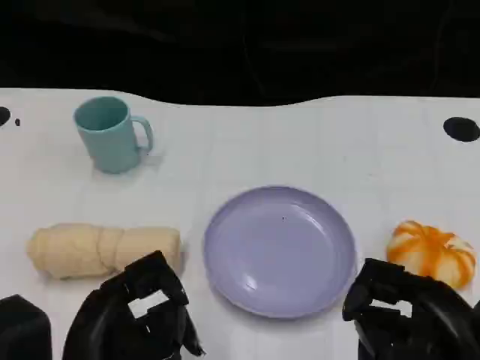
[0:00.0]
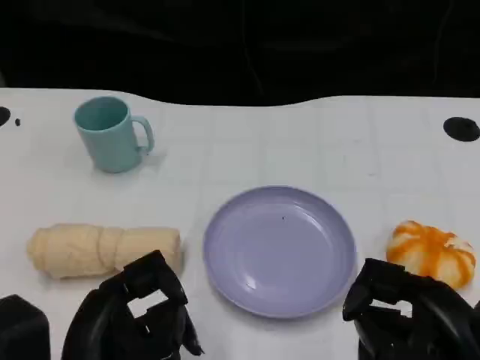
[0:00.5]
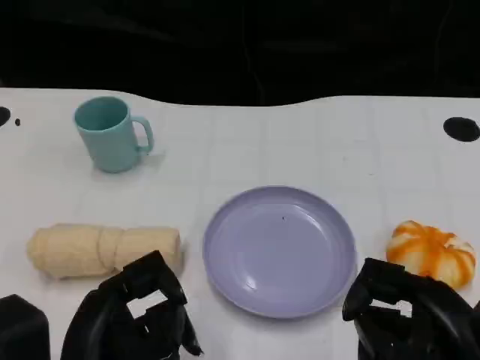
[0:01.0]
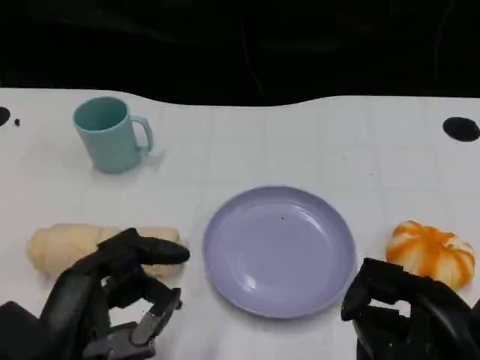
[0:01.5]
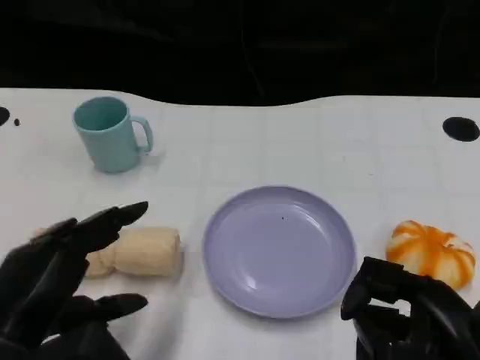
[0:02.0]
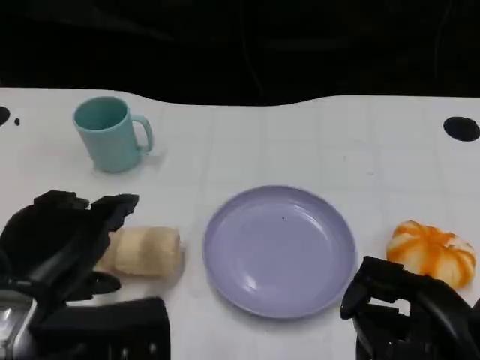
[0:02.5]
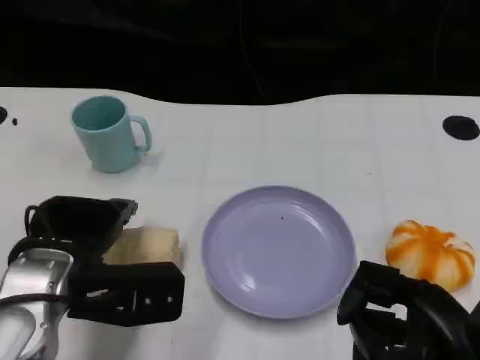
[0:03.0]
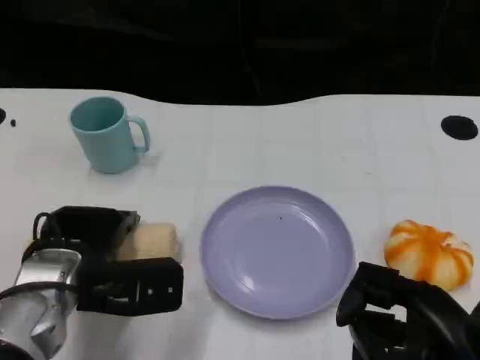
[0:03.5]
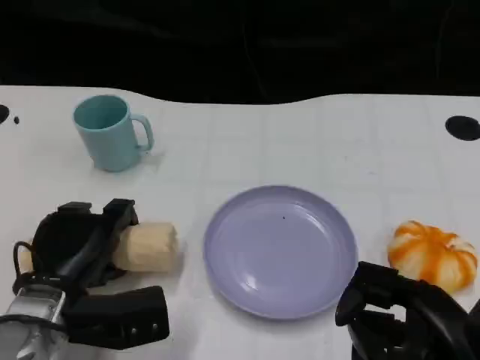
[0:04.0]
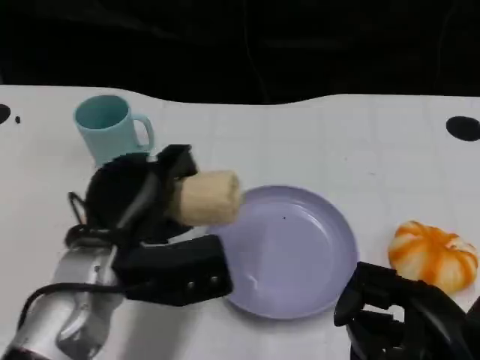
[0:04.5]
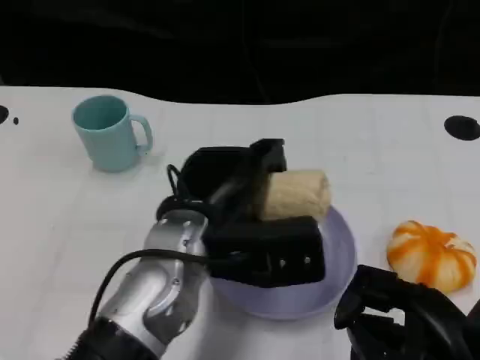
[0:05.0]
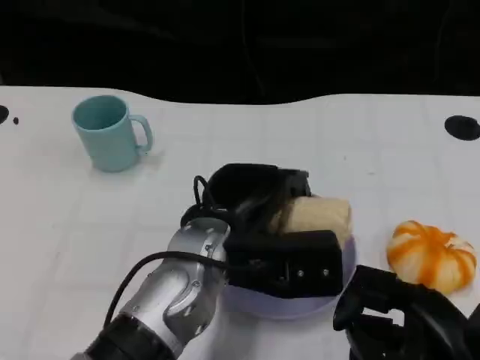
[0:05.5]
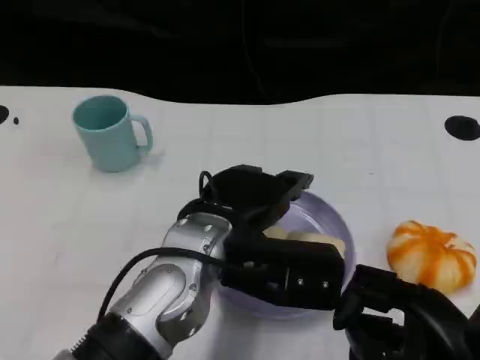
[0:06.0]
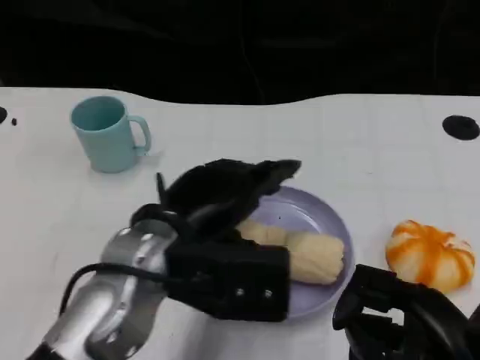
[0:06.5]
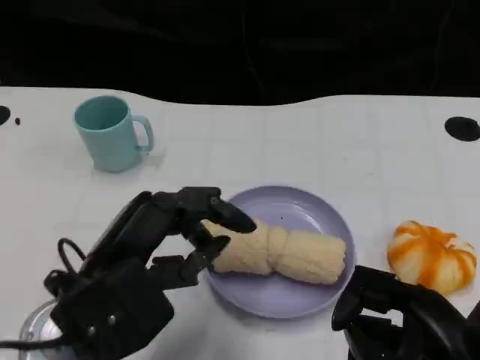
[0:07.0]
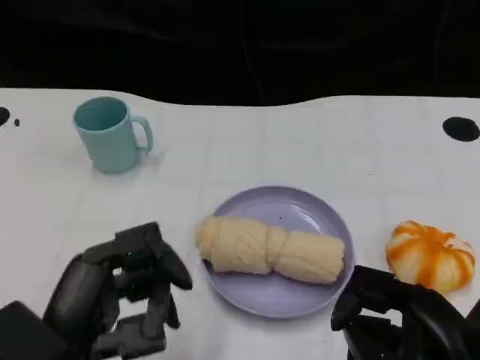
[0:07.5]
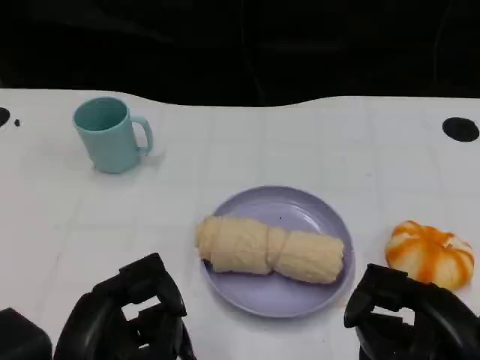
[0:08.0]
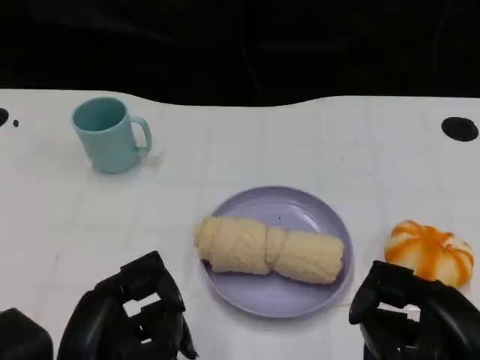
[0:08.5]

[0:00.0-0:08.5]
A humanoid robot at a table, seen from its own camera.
Task of the whole recording: Grasp the towel on the left side of the plate with the left hand and place it into the plate.
0:00.0 to 0:02.0: The left hand shifts by about 5 cm.
0:02.0 to 0:04.0: The left hand goes approximately 15 cm forward and downward.
0:04.0 to 0:06.5: The left hand moves upward and to the right, approximately 15 cm.
0:06.5 to 0:08.5: The left hand moves backward, to the left and downward, roughly 15 cm.

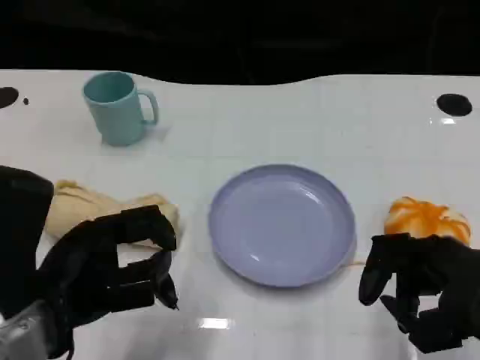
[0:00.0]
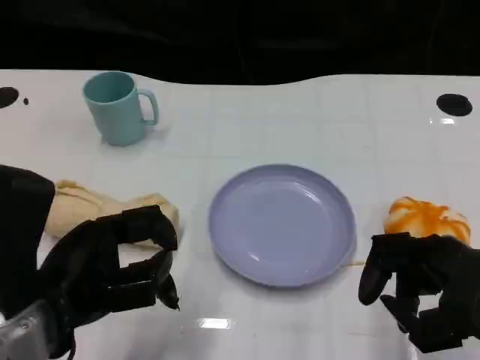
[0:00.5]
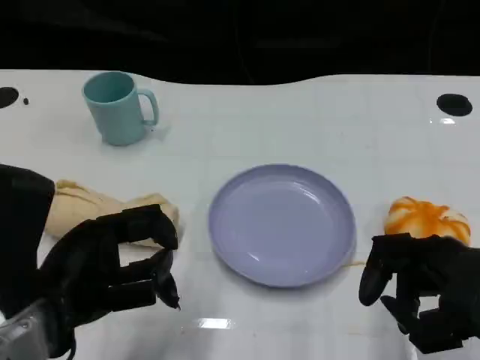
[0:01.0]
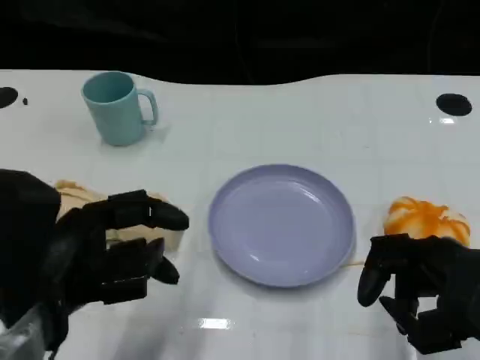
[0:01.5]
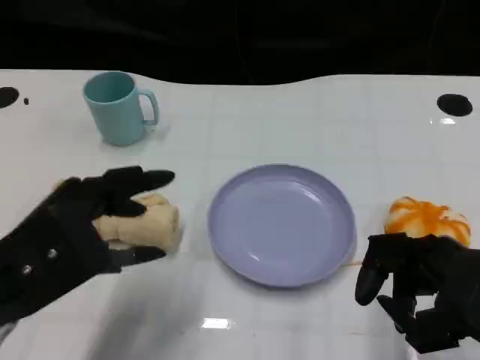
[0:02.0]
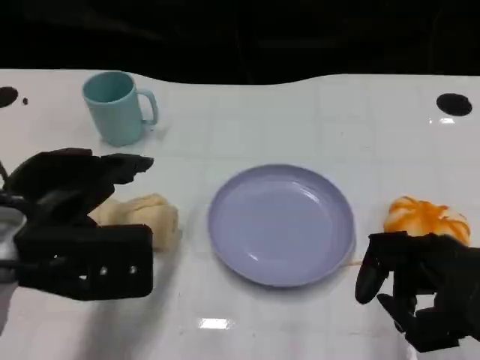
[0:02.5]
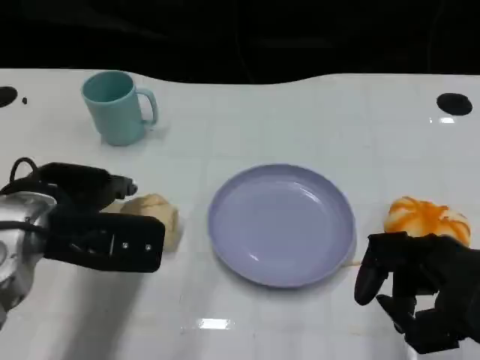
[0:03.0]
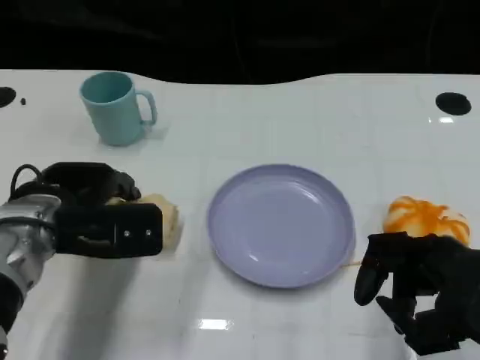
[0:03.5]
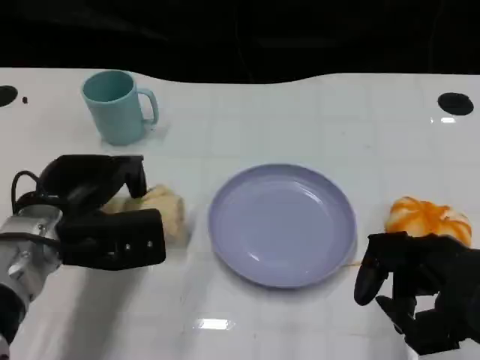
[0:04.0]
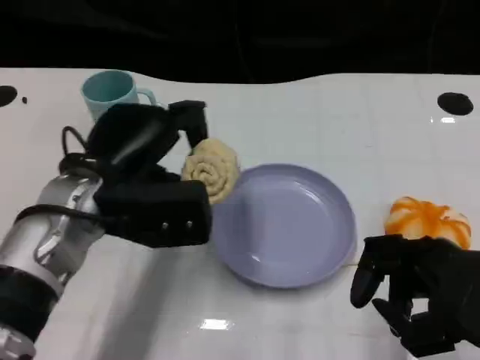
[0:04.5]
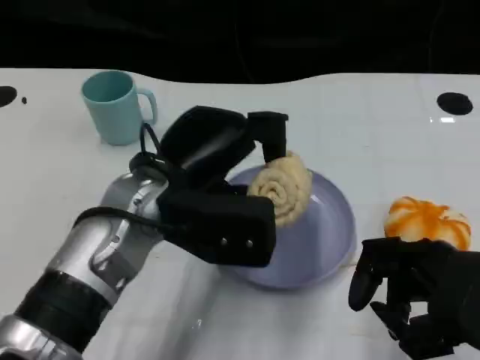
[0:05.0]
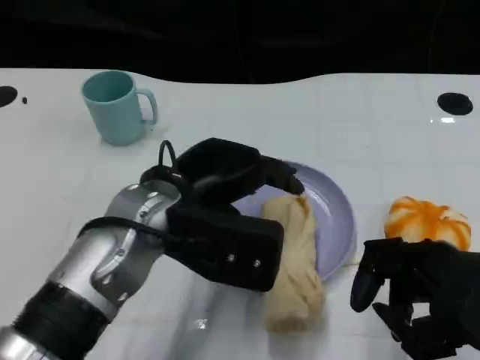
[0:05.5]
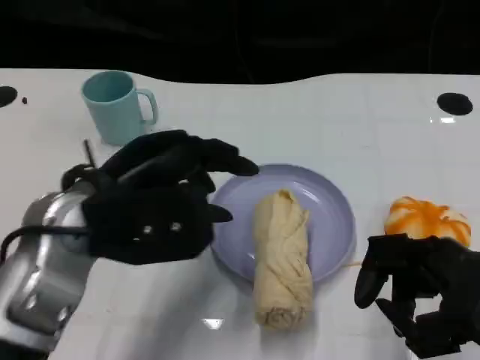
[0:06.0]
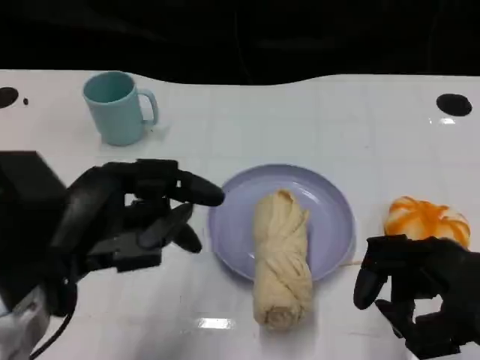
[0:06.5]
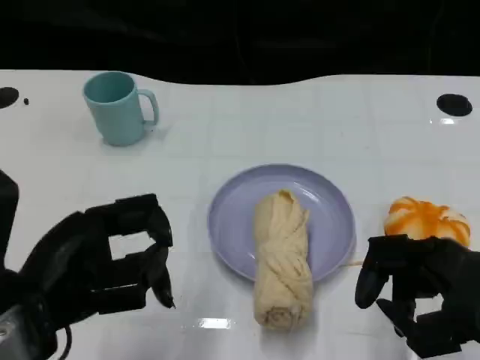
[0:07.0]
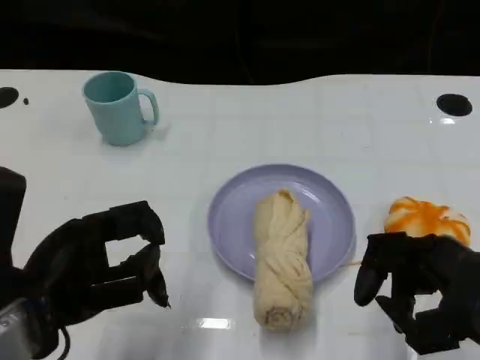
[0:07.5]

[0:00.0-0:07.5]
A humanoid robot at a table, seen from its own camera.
Task of the whole recording: Grasp the towel on the left side of the plate with the left hand and place it into the plate.
0:02.0 to 0:04.0: The left hand moves forward and downward, some 10 cm.
0:04.0 to 0:05.5: The left hand goes some 10 cm to the right and upward.
0:05.5 to 0:07.5: The left hand is displaced to the left and backward by some 15 cm.
